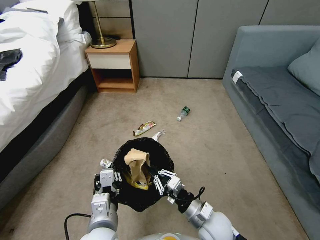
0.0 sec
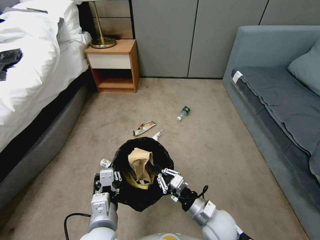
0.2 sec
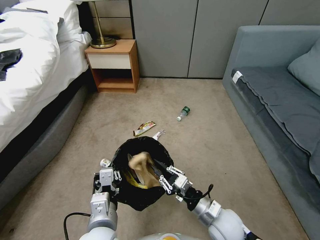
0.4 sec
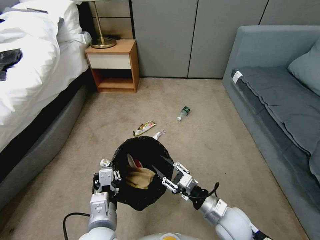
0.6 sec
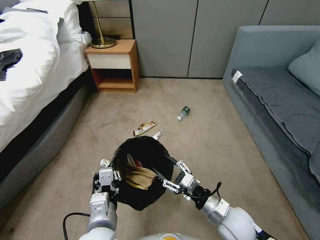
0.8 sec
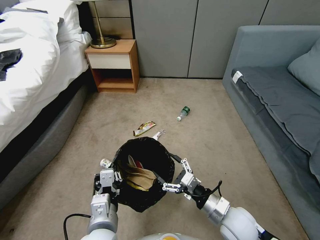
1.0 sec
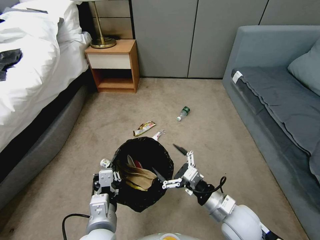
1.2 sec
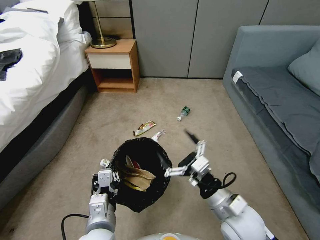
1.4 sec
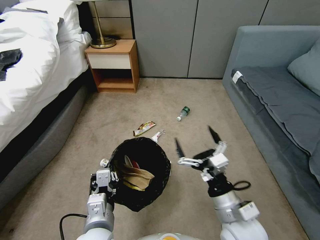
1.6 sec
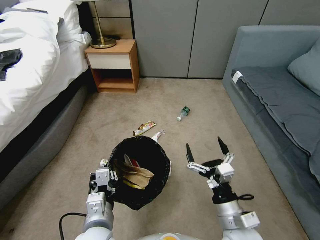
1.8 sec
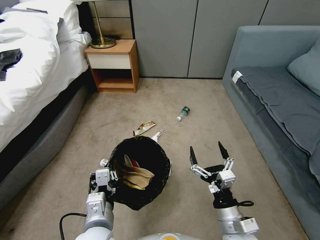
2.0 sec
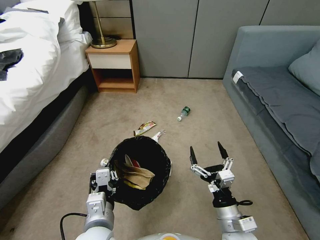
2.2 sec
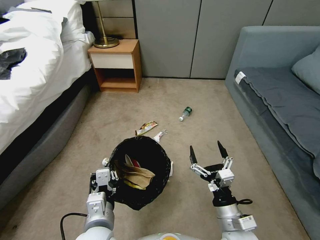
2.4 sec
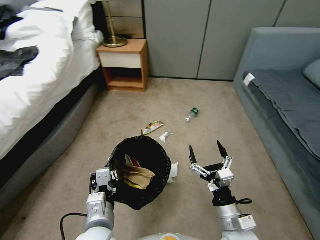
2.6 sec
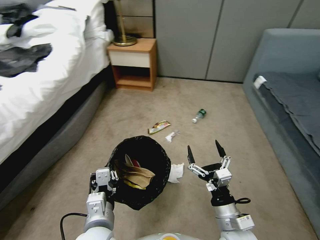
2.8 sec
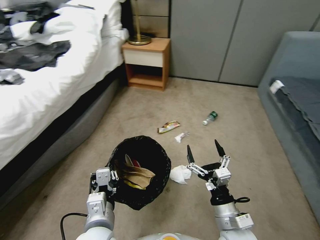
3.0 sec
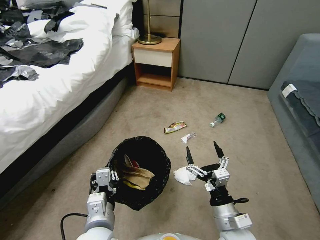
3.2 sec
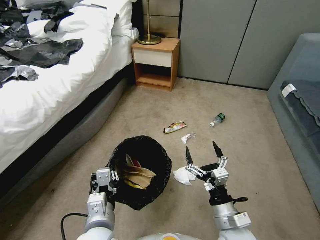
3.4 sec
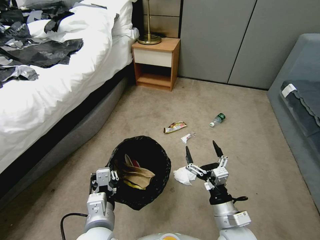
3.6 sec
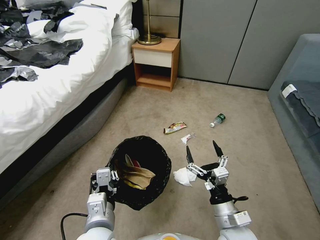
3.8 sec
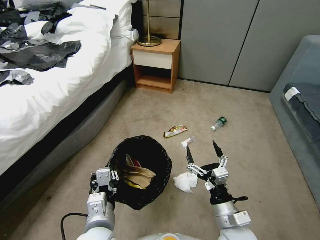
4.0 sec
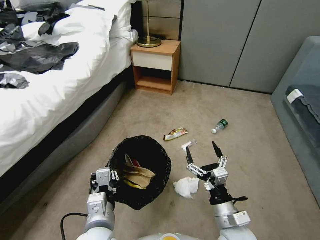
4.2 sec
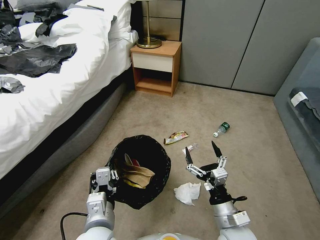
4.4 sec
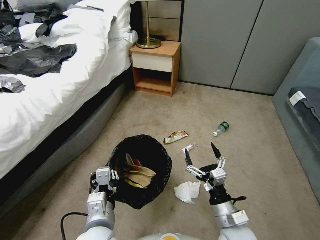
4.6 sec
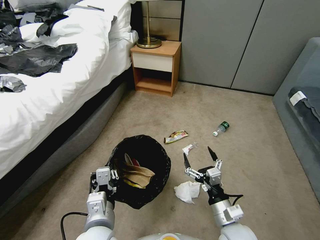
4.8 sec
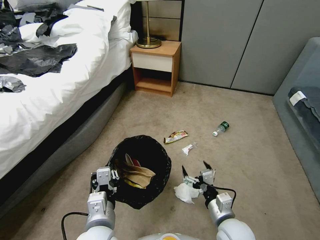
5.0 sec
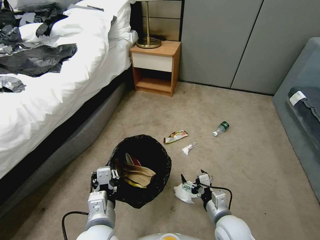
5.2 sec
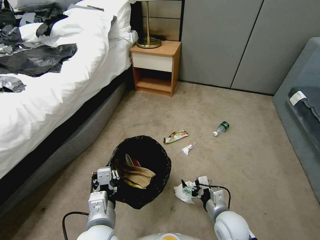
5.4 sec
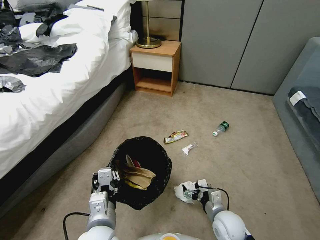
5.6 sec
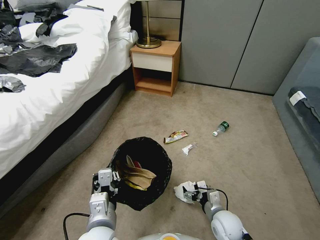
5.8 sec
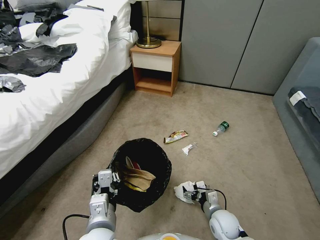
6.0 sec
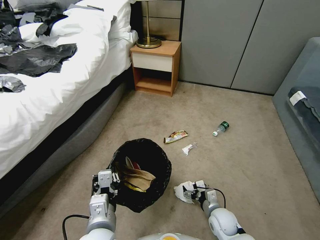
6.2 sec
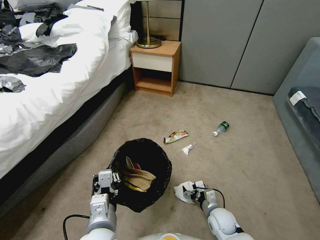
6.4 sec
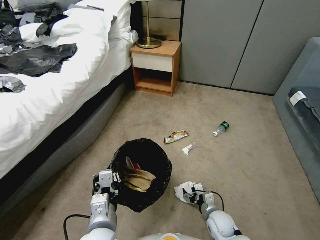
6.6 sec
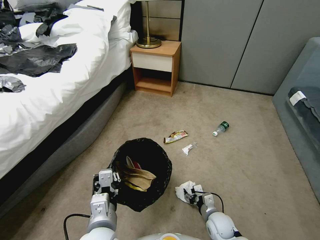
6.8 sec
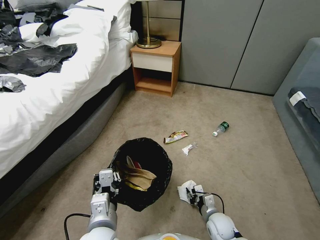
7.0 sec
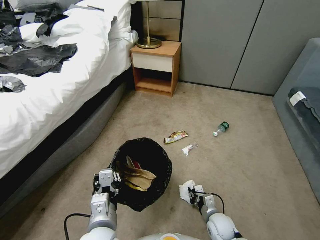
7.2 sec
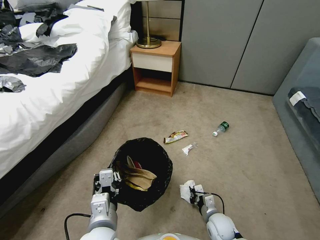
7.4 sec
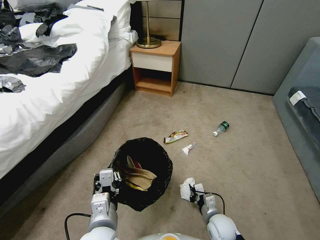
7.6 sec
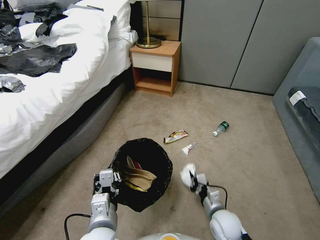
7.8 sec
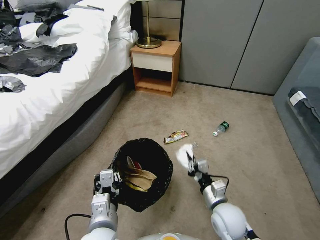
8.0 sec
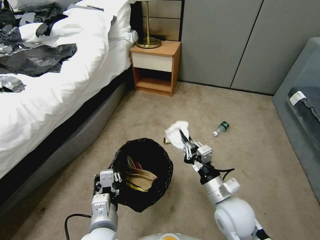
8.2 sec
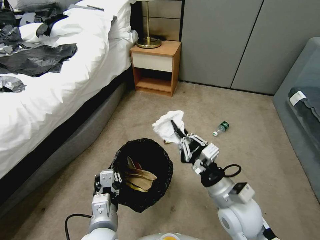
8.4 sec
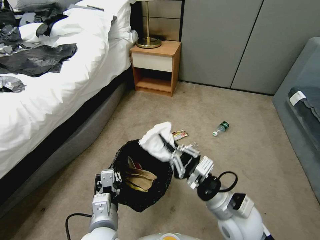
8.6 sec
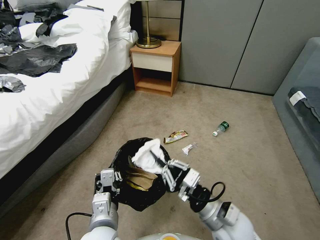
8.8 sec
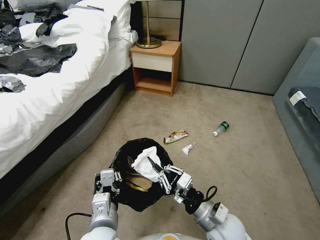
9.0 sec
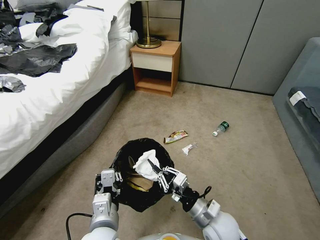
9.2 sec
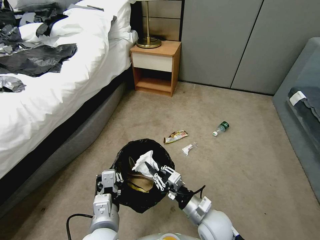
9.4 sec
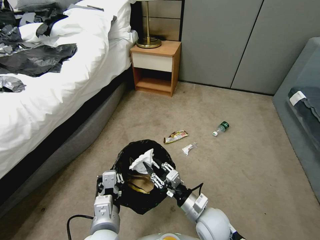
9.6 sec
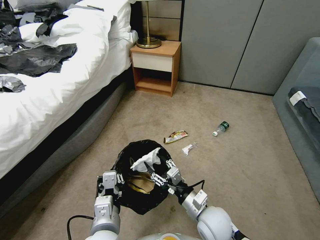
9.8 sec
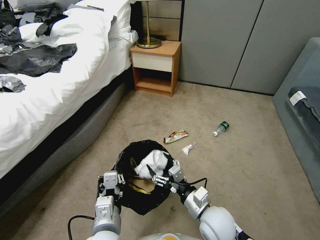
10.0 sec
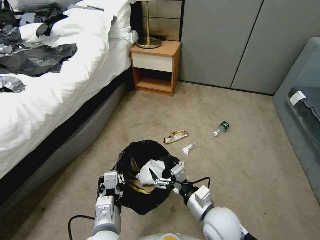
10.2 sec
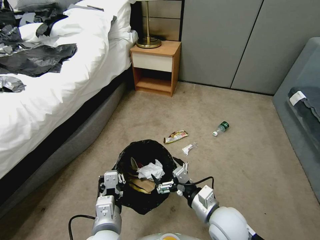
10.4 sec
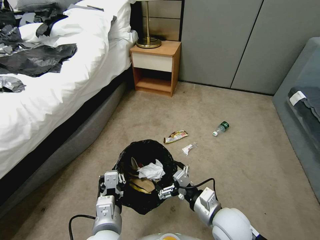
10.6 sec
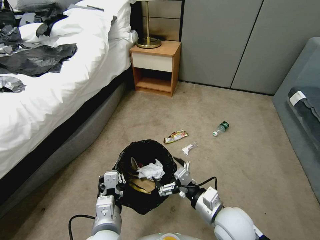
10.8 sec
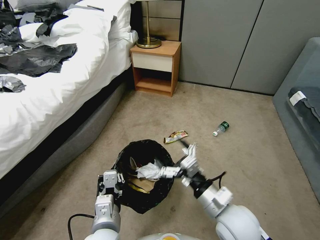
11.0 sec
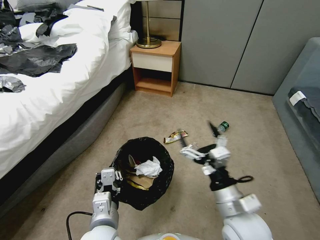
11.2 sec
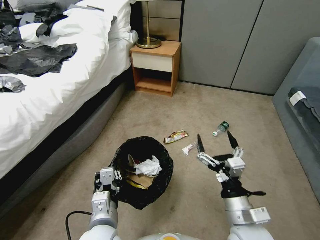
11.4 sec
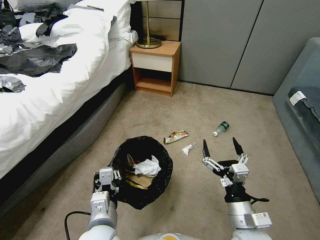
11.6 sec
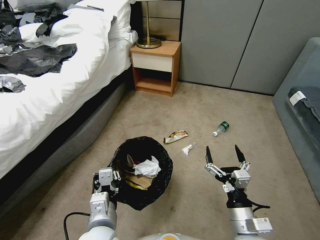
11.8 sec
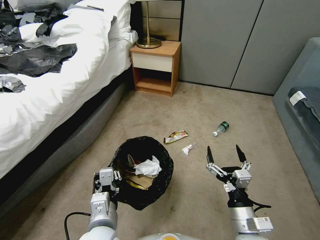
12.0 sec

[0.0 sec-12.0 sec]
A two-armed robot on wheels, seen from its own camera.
Task of the whole recording: Pick up the trash bin, then pick up the garbage from the floor and place it into the trash bin.
0.0 sec to 1.6 sec: The right gripper travels upward by roughly 10 cm, and opens.
1.6 sec to 3.0 sec: The right gripper goes about 5 cm downward.
4.4 sec to 6.0 sec: The right gripper is displaced downward and forward by about 15 cm.
6.0 sec to 7.6 sec: The right gripper closes up.
7.6 sec to 9.0 sec: The right gripper travels upward by roughly 20 cm.
9.0 sec to 10.4 sec: The right gripper opens up.
10.4 sec to 12.0 sec: The right gripper shifts some 10 cm to the right and backward, and travels upward and back again, approximately 5 cm each way.

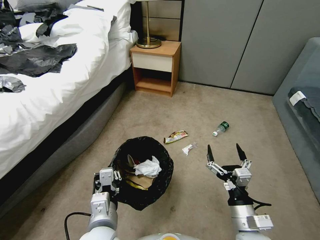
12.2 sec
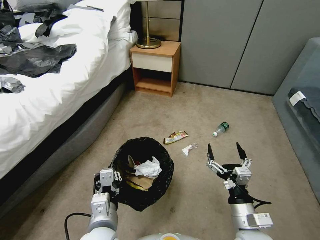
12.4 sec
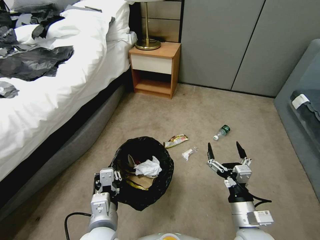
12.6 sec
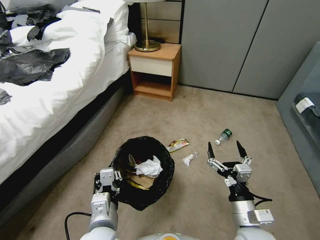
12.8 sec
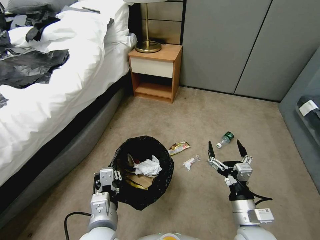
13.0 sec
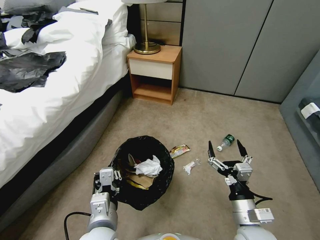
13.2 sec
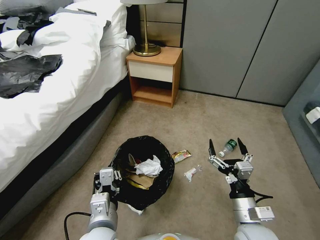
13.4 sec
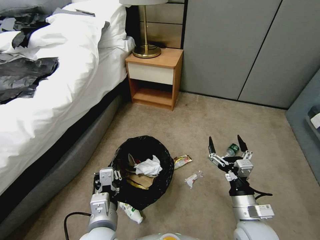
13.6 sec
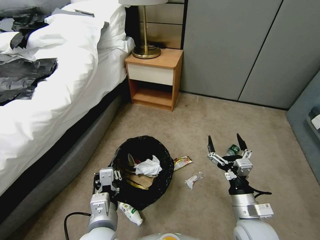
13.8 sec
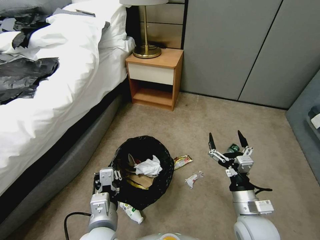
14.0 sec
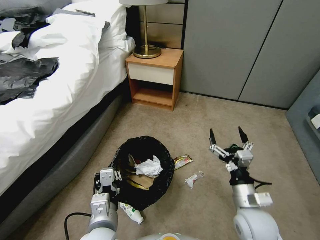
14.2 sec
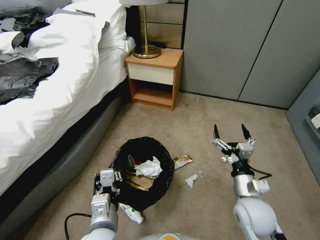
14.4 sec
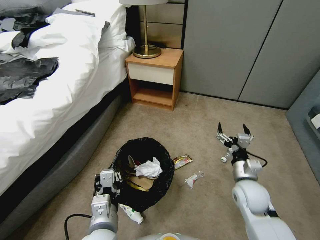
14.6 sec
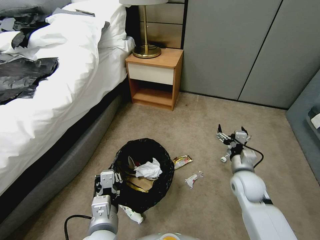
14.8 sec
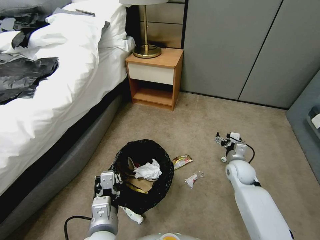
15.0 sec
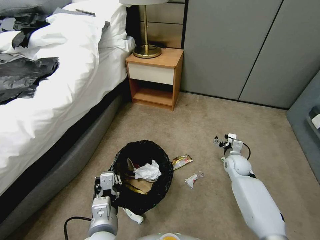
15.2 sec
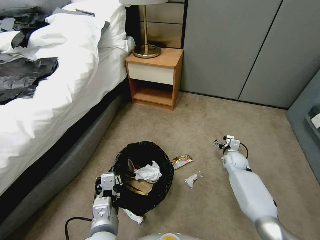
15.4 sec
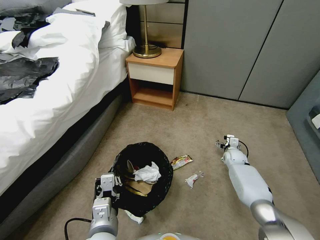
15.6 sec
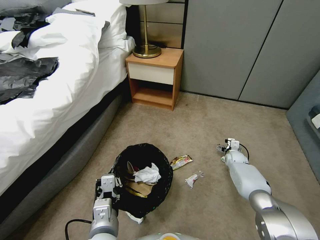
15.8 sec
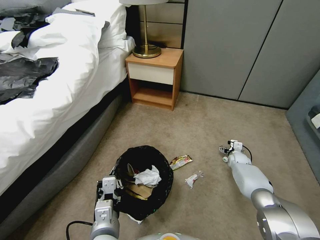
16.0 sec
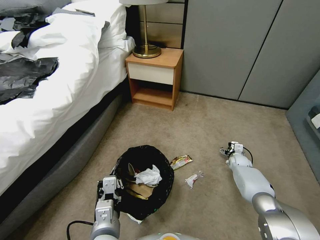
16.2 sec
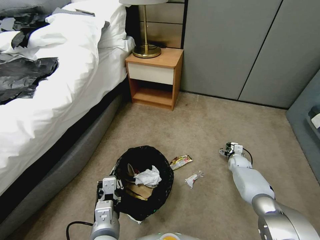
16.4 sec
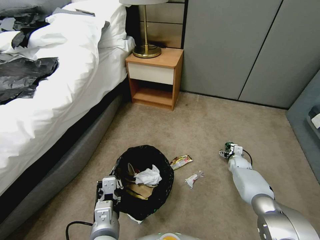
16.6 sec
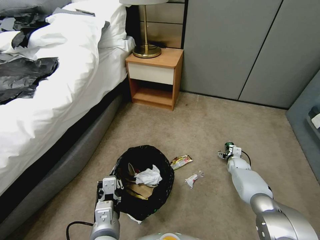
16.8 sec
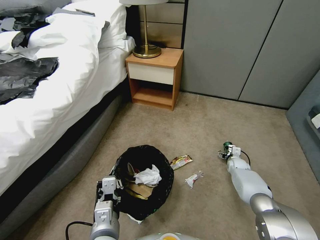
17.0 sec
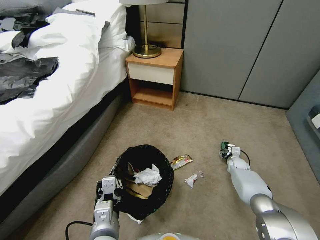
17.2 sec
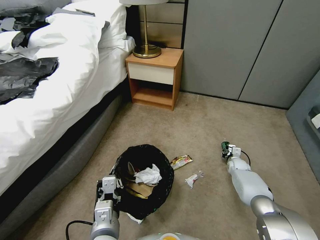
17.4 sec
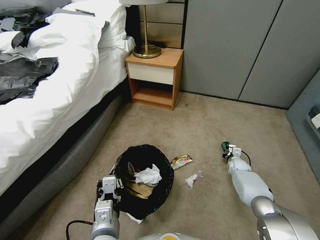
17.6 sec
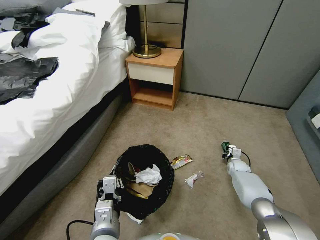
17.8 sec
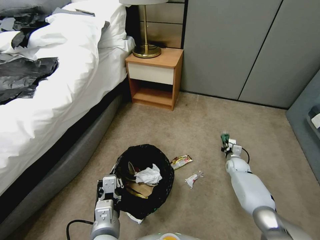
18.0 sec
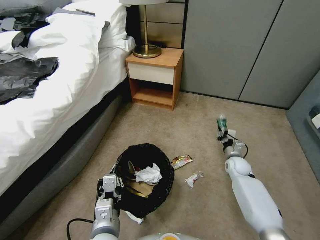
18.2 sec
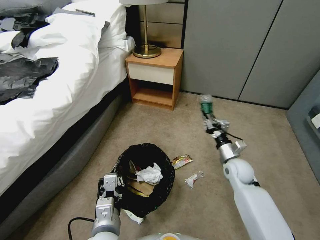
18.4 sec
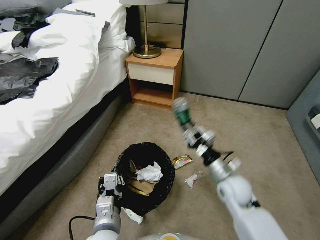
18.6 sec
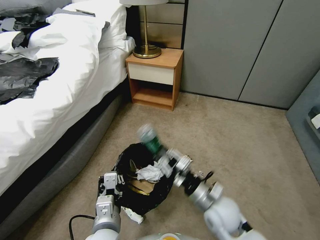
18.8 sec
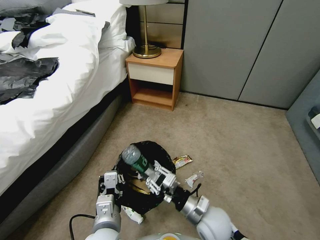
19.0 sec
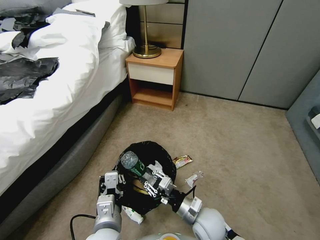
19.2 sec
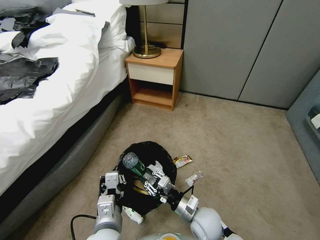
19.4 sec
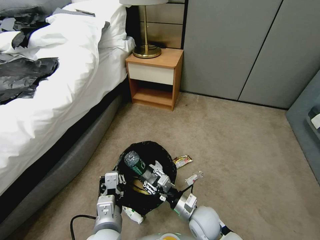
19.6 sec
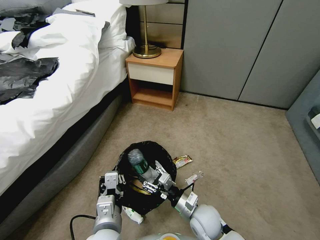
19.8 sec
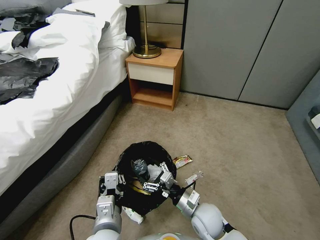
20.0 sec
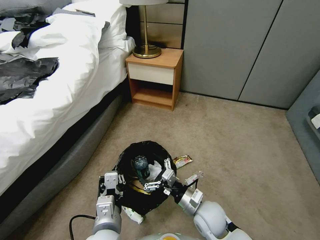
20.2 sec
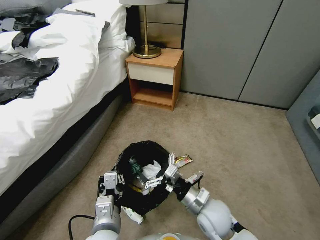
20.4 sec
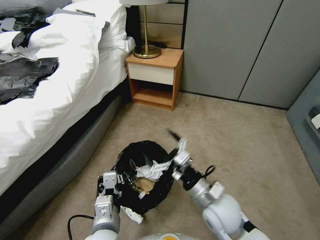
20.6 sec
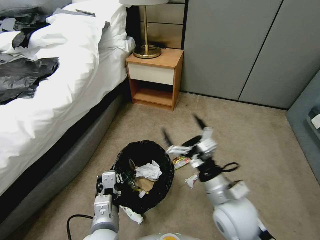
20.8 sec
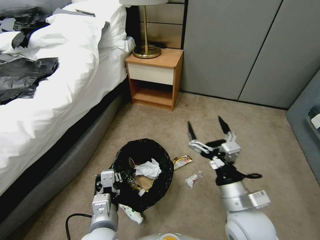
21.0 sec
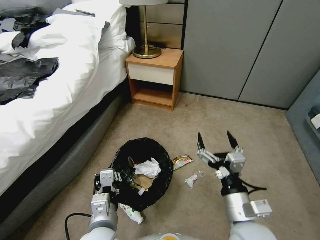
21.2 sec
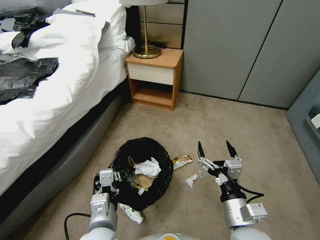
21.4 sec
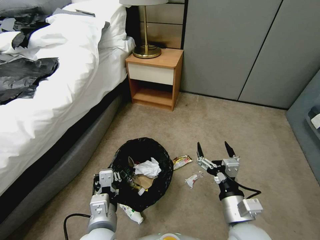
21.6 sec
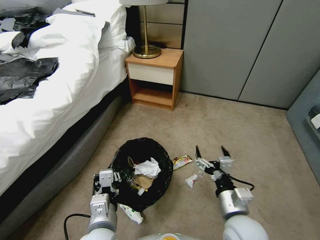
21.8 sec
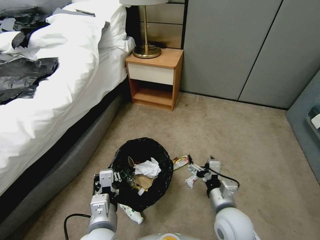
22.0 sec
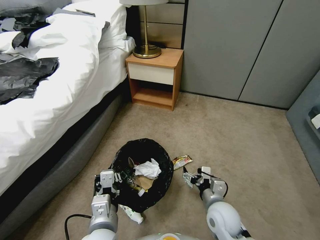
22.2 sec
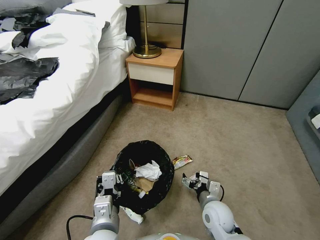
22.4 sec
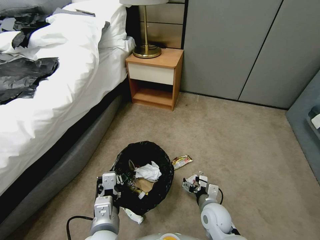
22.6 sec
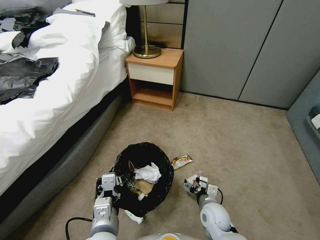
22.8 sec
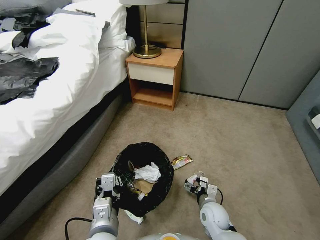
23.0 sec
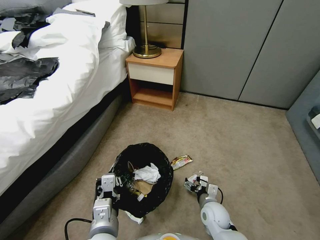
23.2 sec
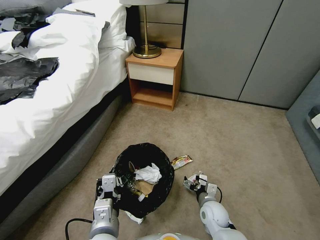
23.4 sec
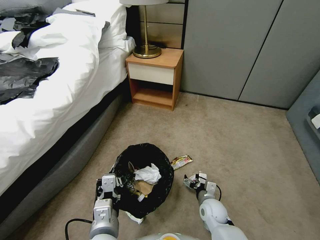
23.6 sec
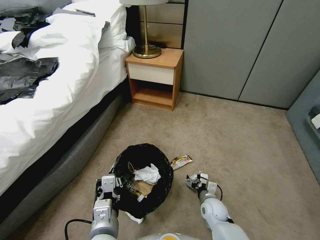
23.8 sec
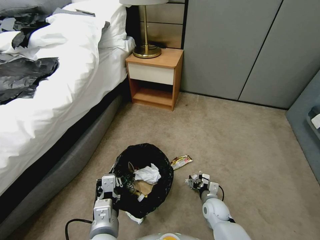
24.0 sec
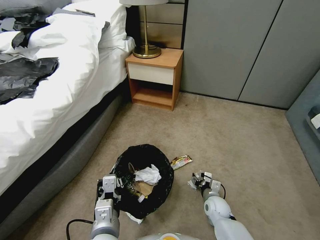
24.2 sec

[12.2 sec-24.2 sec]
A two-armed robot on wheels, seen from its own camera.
Task of the whole recording: Pick up the trash bin, then pick up the garbage from the floor and place it into the trash bin.
13.8 sec to 15.2 sec: The right gripper goes about 25 cm forward.
15.2 sec to 16.6 sec: The right gripper goes approximately 10 cm downward and to the right.
16.6 sec to 18.2 sec: The right gripper moves upward and to the left, roughly 10 cm, and closes up.
18.2 sec to 19.8 sec: The right gripper heads backward and to the left, covering roughly 30 cm, and opens up.
19.8 sec to 21.2 sec: The right gripper goes approximately 20 cm upward, backward and to the right, and opens up.
21.2 sec to 22.6 sec: The right gripper shifts some 20 cm downward and forward.
22.6 sec to 24.2 sec: The right gripper heads downward and forward, covering approximately 10 cm, and closes.
